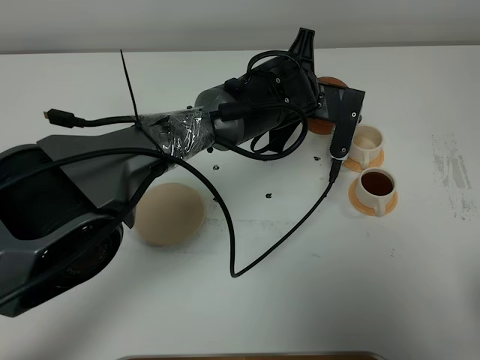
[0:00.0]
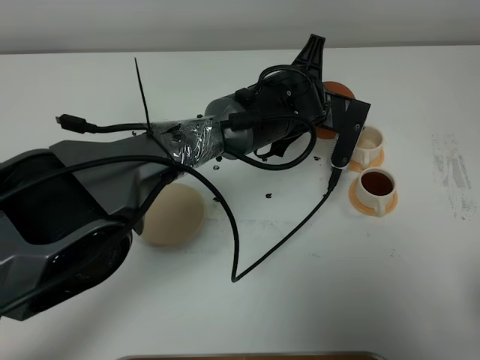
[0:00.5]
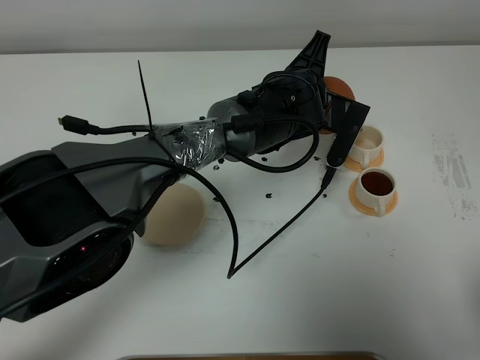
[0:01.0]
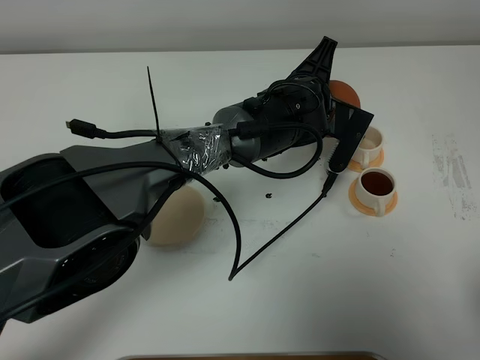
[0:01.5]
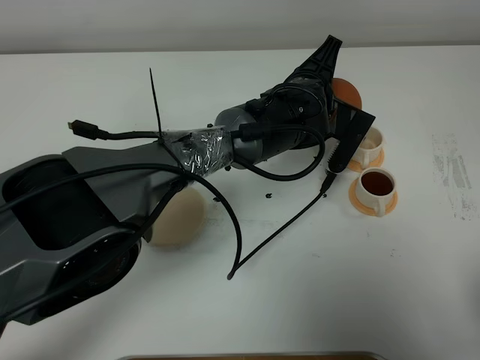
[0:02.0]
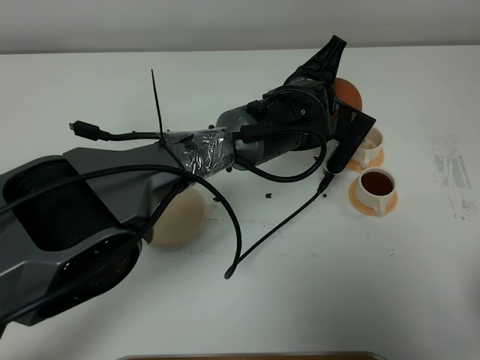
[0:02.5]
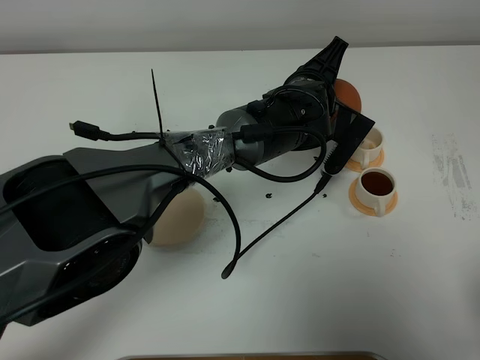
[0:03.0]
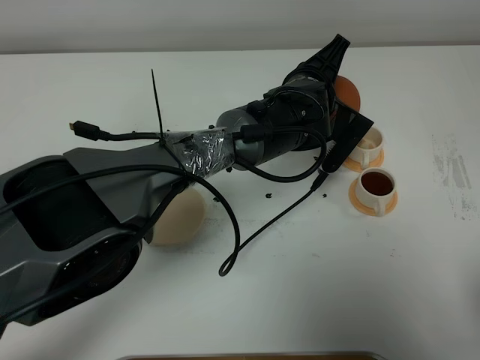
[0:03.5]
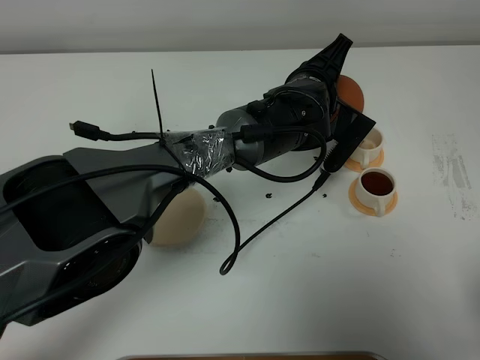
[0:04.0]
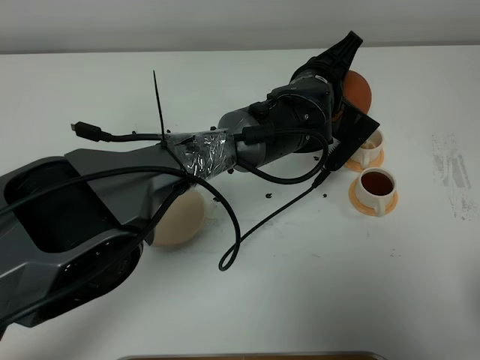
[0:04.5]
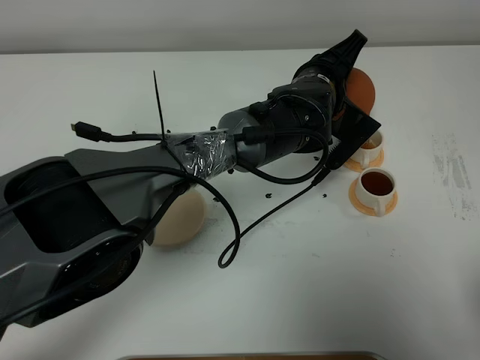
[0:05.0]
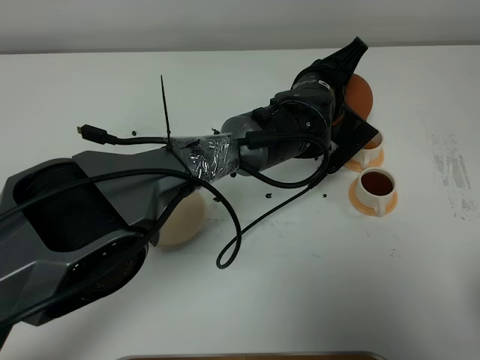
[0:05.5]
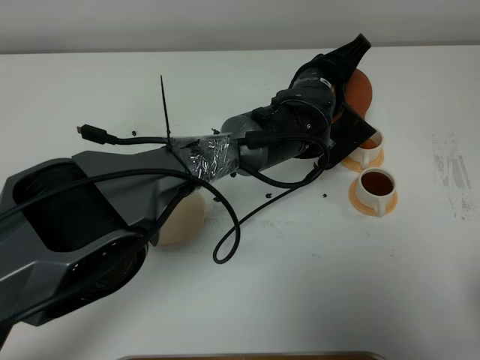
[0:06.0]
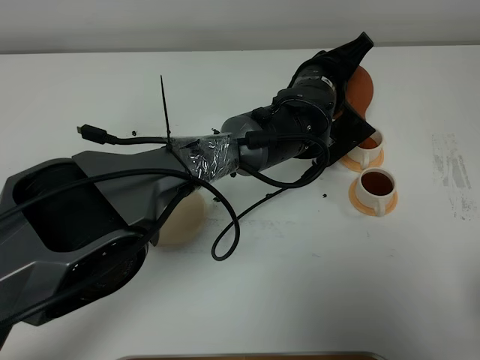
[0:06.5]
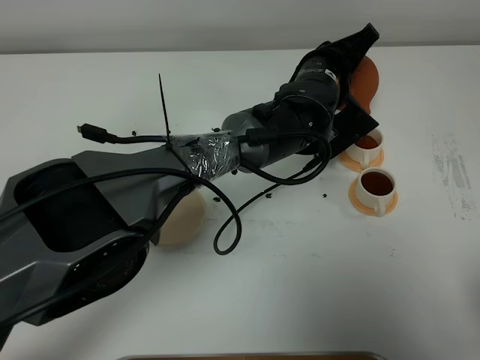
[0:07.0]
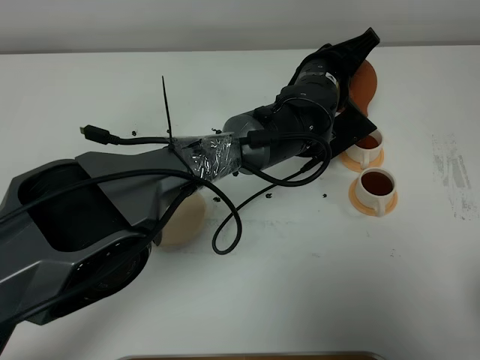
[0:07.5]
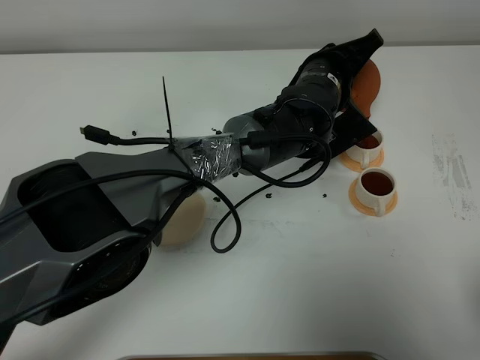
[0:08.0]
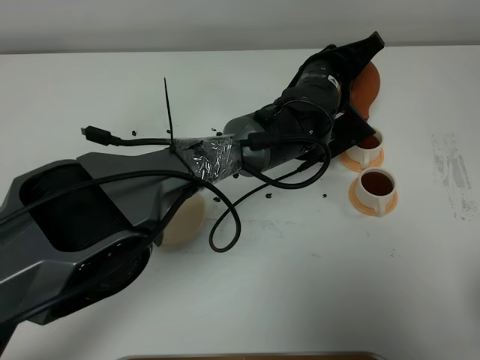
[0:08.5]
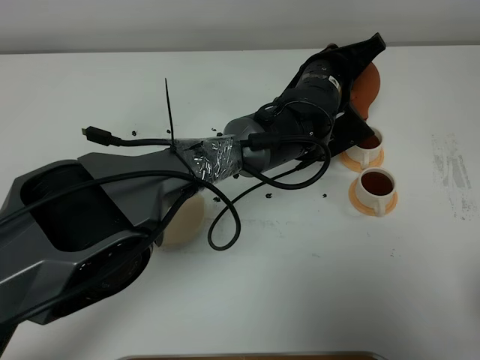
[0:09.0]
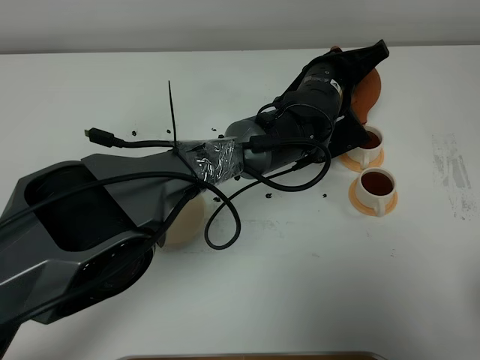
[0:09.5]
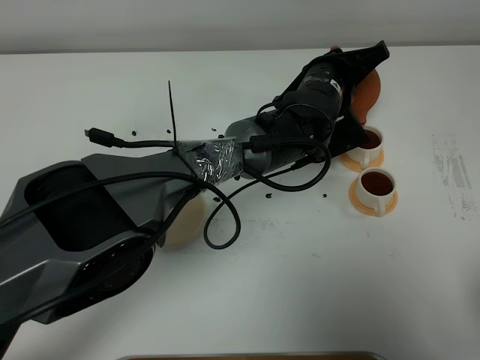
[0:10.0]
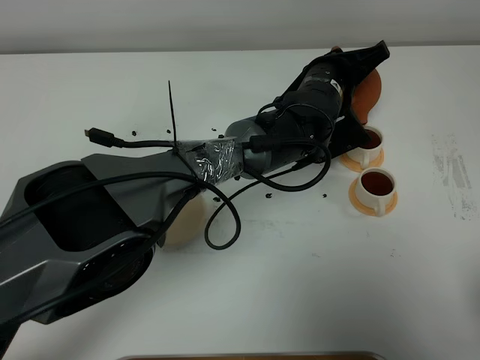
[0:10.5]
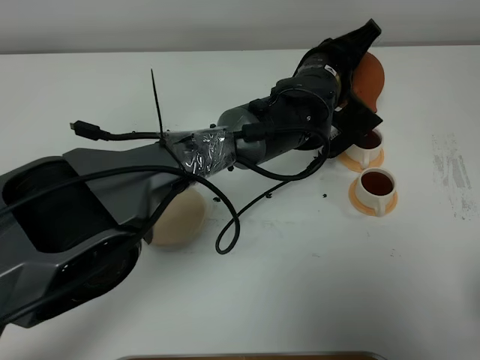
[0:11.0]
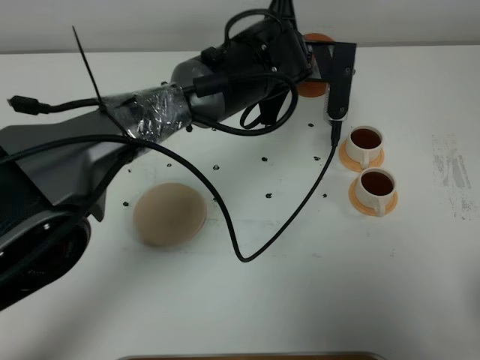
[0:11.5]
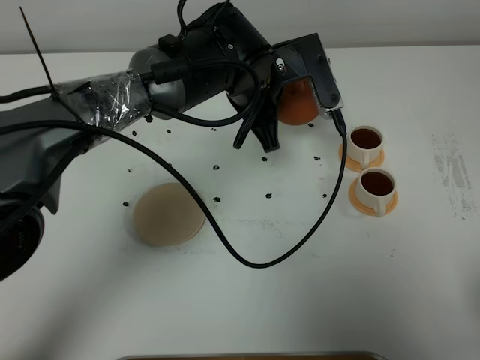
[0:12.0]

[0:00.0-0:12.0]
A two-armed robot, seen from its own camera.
Task of the whole recording: grasp the brown teapot and pour the tea into the two white teacups one by one, put the brown teapot back in its original place.
Step, 0:00.0 to 0:11.0: Pour tea into the teacup with the left gripper.
0:00.0 to 0:02.0: The grippers make only small movements.
0:02.0 to 0:04.0: There are only small adjustments of the grippers.
0:04.0 to 0:06.0: The grippers make only small movements.
0:06.0 to 0:10.0: There are only small adjustments of the grippers.
0:10.0 to 0:12.0: The left gripper moves to the left and upward, about 10 cm.

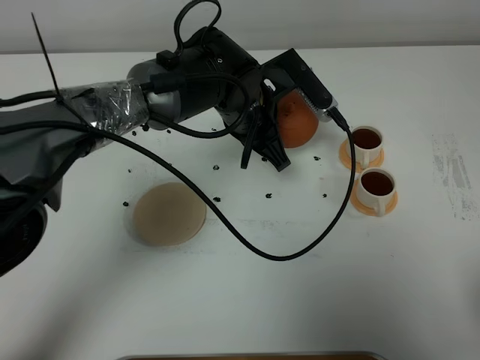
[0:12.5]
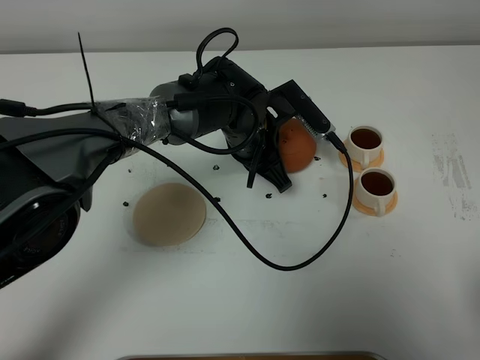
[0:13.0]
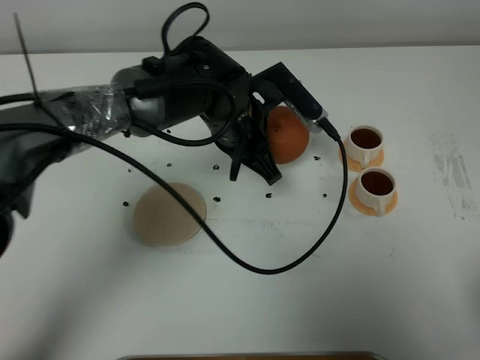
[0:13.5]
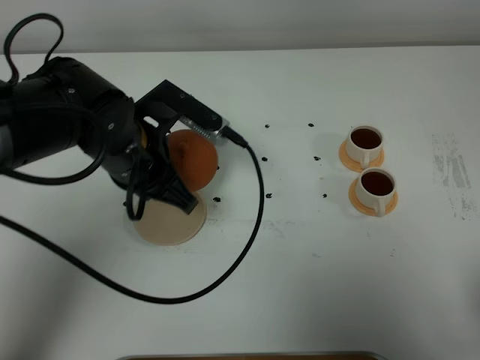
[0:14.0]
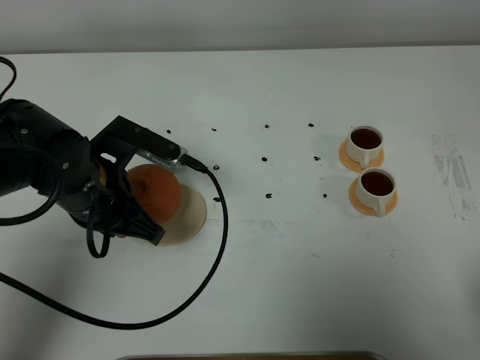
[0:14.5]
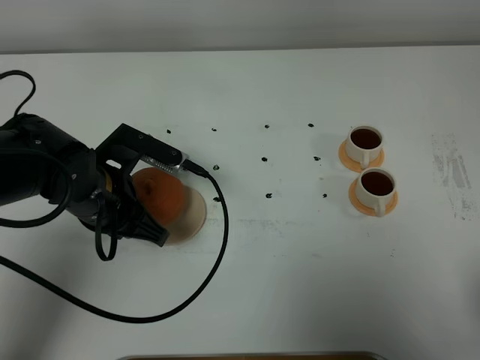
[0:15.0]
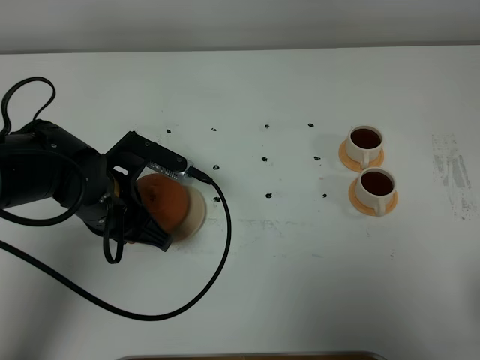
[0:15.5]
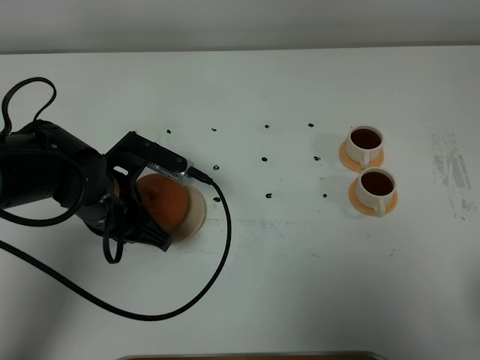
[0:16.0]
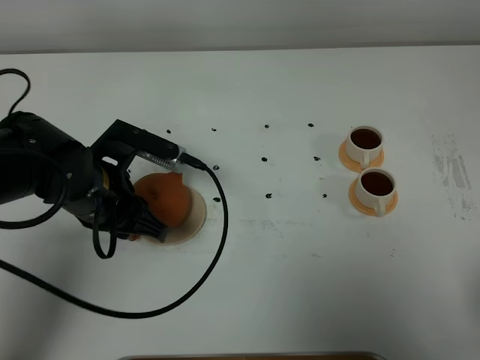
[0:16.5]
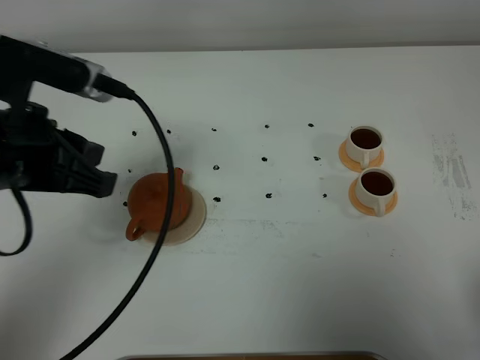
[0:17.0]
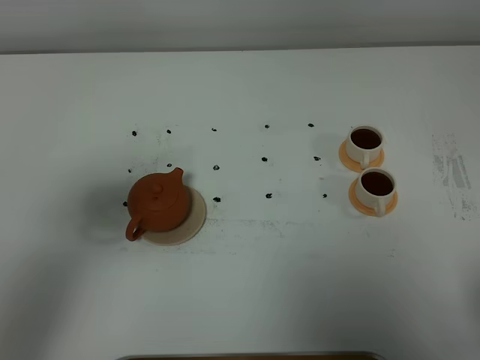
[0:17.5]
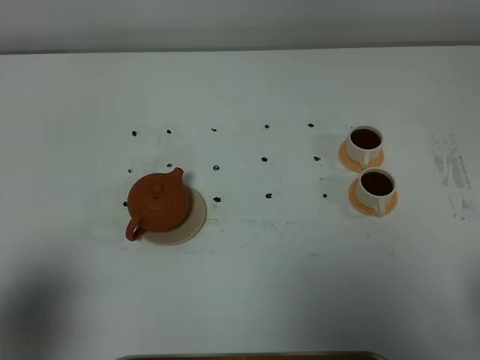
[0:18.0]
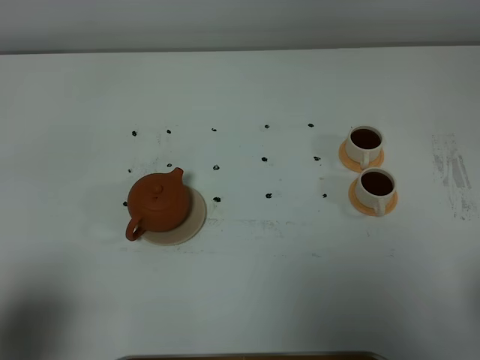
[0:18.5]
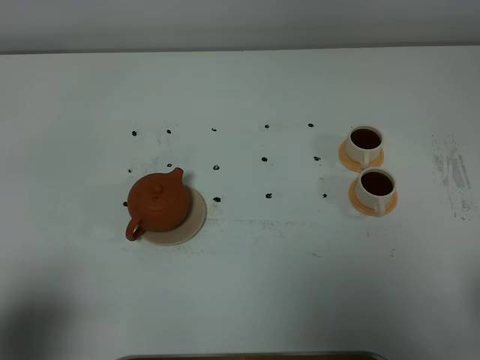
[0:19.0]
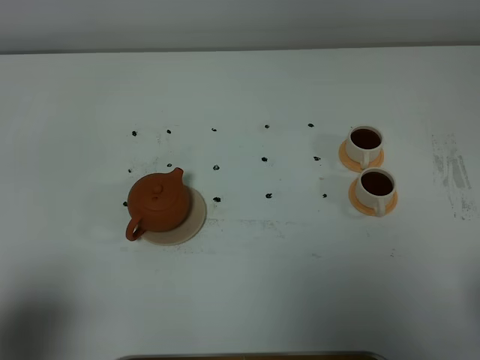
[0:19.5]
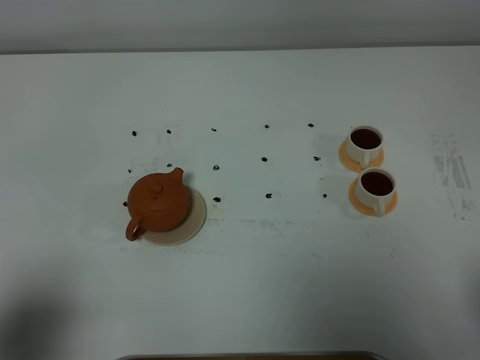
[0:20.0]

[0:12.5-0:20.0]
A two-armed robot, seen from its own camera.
Task of the whole recording: grasp the brown teapot and pour the tea into the two white teacups one by one, put the brown teapot back in its original place.
0:12.5 to 0:14.5: The left gripper goes roughly 20 cm to the left and backward.
0:14.5 to 0:16.5: The left gripper opens its fingers.
0:16.5 to 0:18.0: The left gripper heads backward, to the left and upward, covering roughly 30 cm.

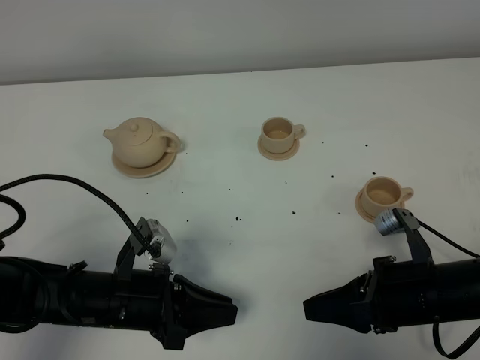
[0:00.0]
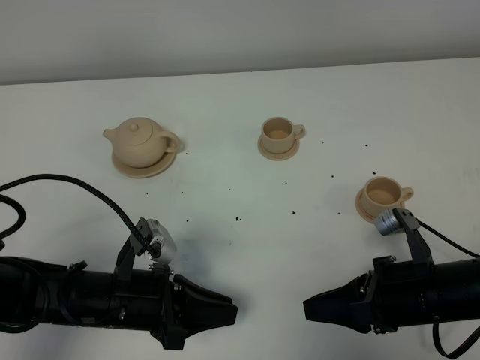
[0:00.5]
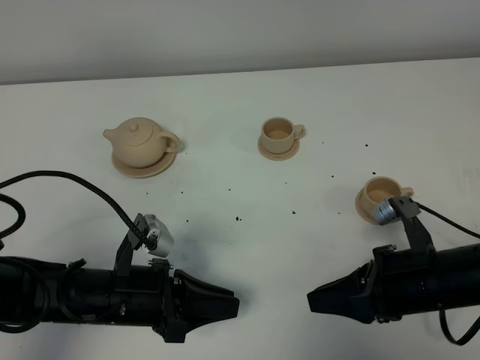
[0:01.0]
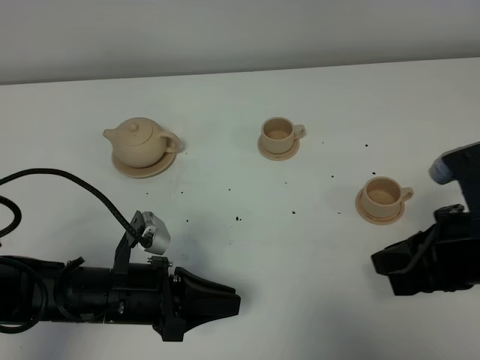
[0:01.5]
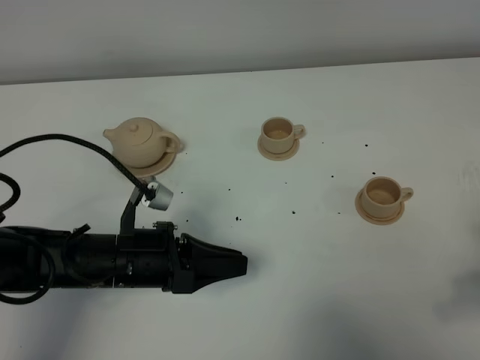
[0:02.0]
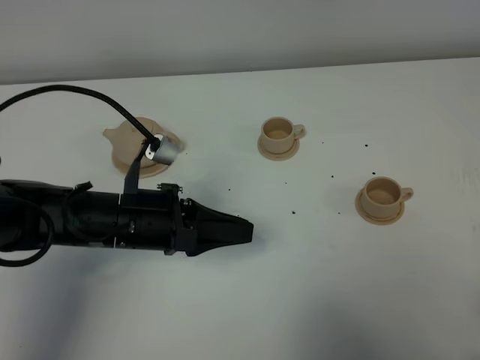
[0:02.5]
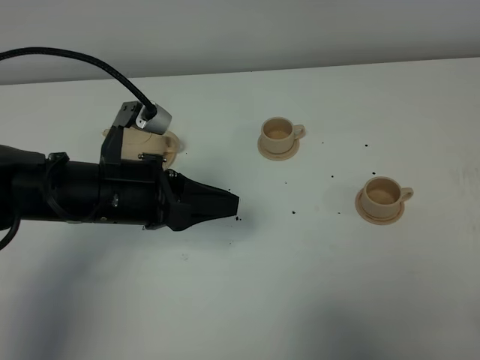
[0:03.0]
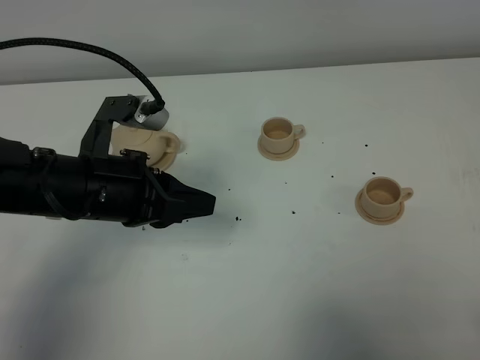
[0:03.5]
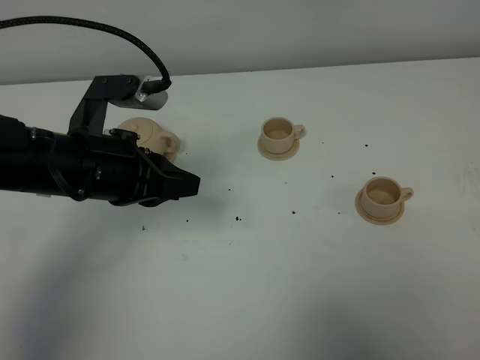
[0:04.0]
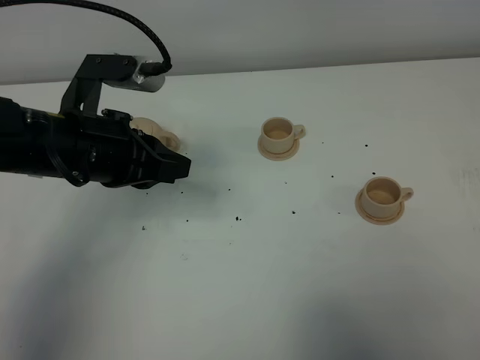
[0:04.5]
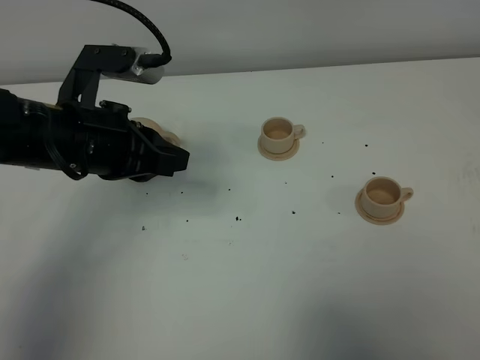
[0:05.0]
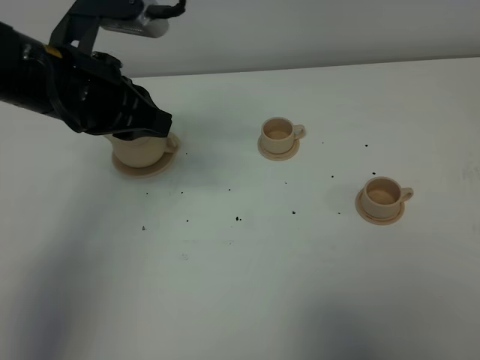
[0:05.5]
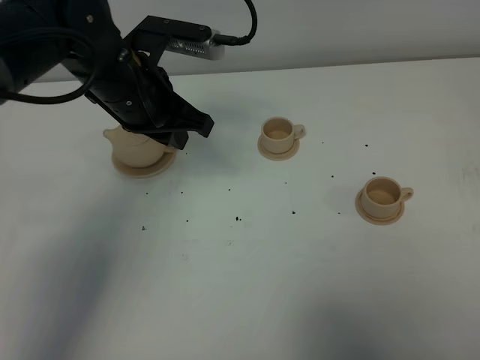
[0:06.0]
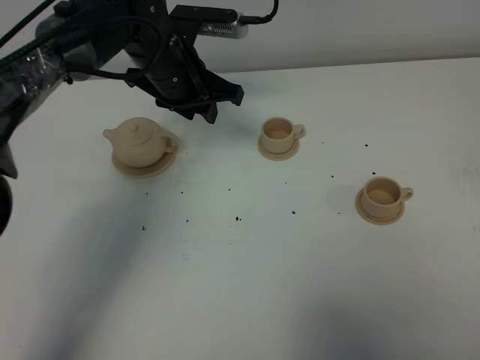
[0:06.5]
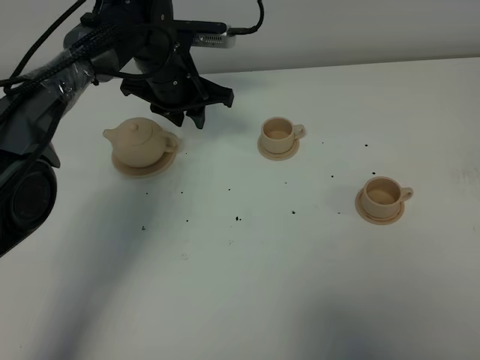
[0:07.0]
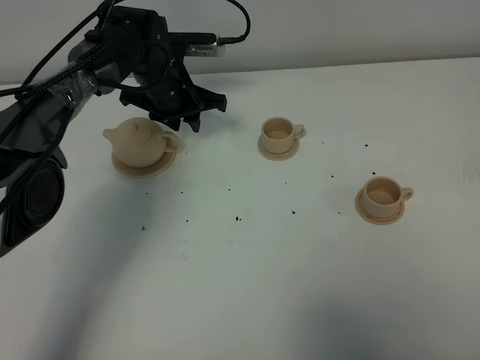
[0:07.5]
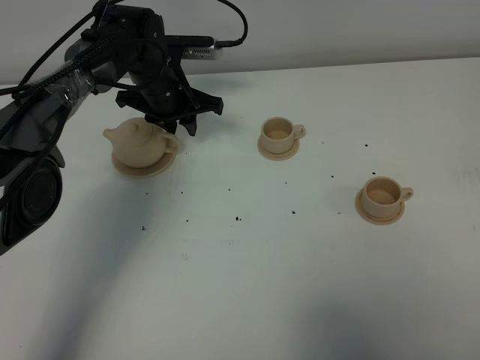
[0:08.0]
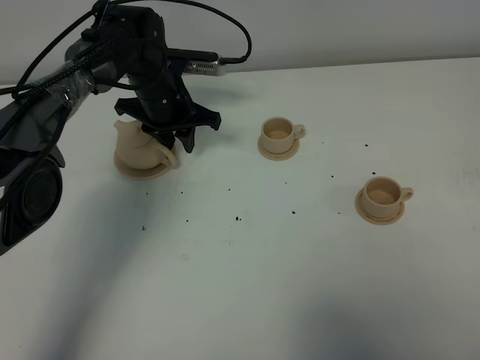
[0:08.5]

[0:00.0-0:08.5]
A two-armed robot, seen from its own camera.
Task of the whole recording: grasp the brown teapot and pour the tea into the two brown teacups one by one, put the brown teapot back in its original place.
0:00.0 to 0:02.0: The right gripper shifts roughly 15 cm upward and to the right.
0:02.0 to 0:04.0: The left gripper moves upward and forward, some 15 cm. The right gripper travels backward by some 10 cm.
0:04.0 to 0:06.5: The left gripper goes about 20 cm forward and to the right, and opens its fingers.
0:06.5 to 0:08.5: The left gripper is displaced downward by about 10 cm.
